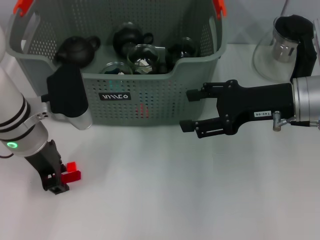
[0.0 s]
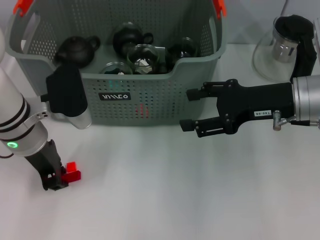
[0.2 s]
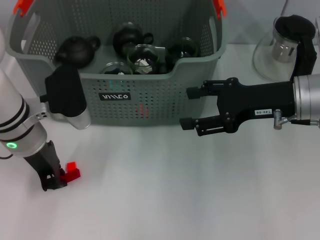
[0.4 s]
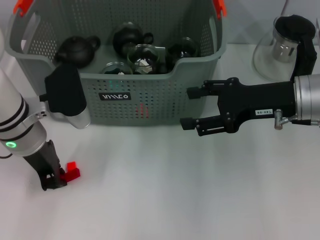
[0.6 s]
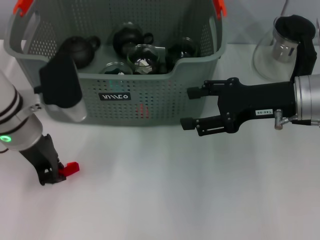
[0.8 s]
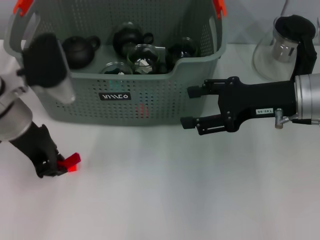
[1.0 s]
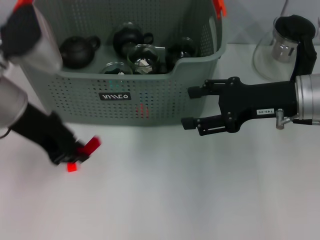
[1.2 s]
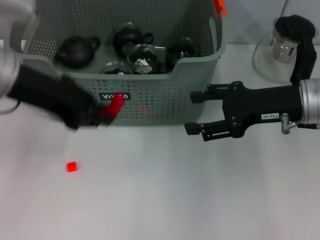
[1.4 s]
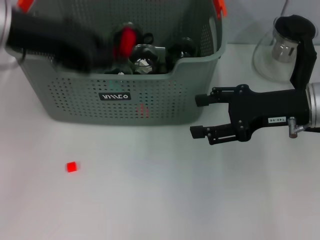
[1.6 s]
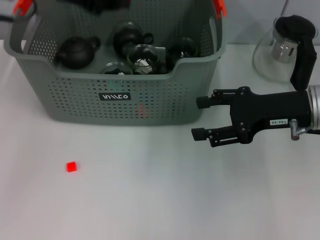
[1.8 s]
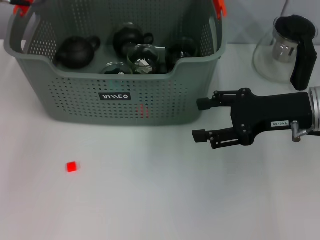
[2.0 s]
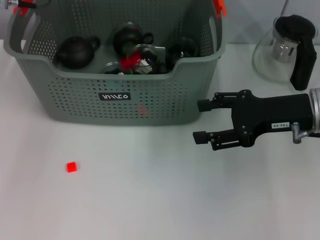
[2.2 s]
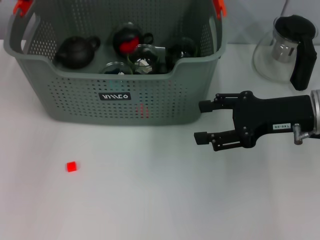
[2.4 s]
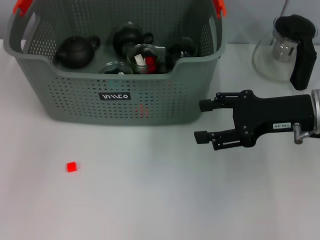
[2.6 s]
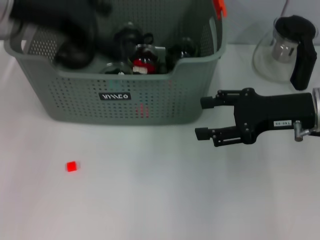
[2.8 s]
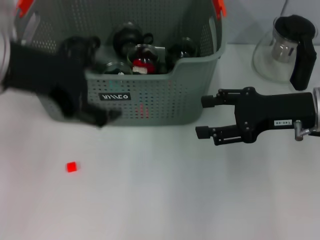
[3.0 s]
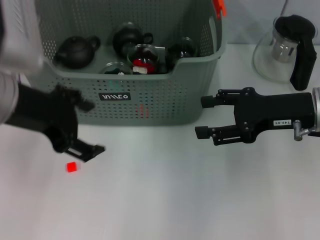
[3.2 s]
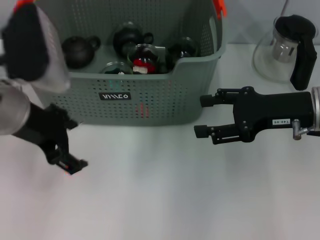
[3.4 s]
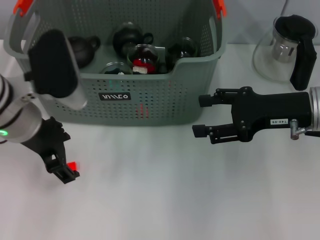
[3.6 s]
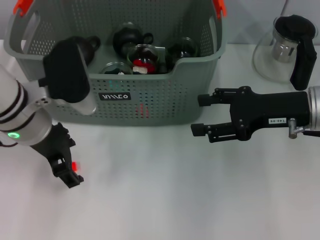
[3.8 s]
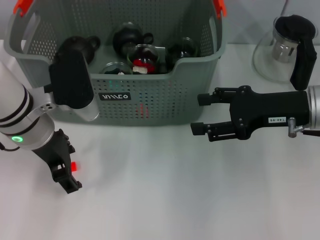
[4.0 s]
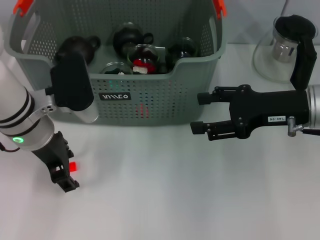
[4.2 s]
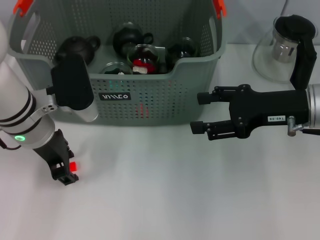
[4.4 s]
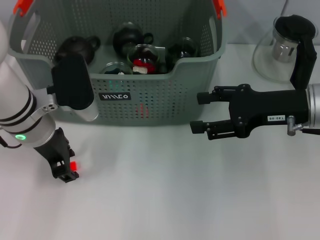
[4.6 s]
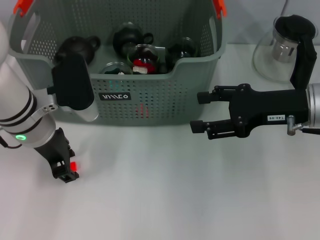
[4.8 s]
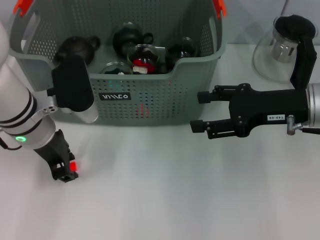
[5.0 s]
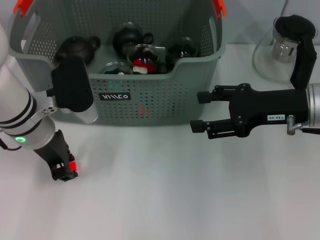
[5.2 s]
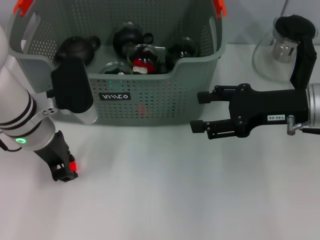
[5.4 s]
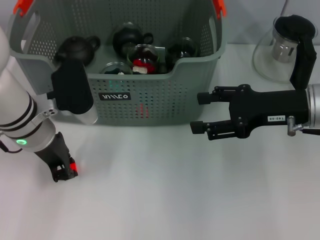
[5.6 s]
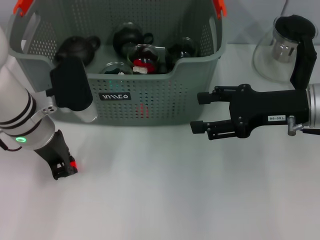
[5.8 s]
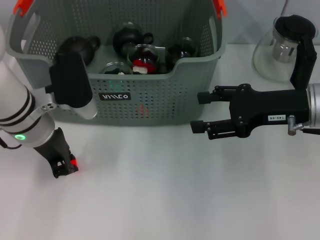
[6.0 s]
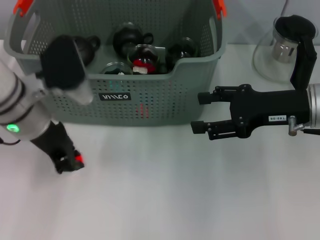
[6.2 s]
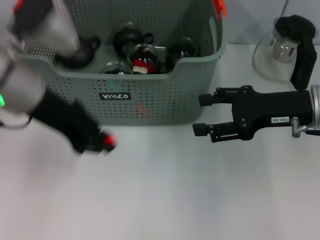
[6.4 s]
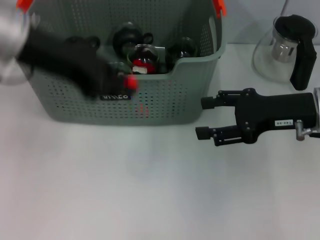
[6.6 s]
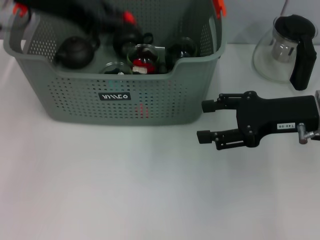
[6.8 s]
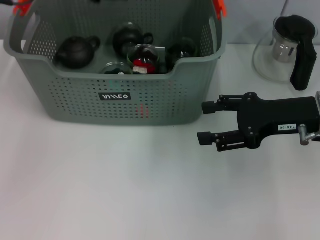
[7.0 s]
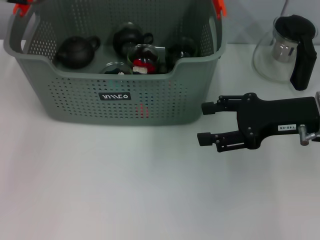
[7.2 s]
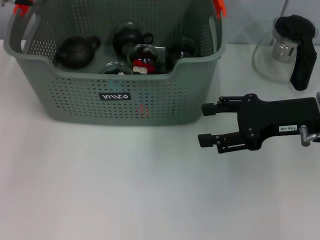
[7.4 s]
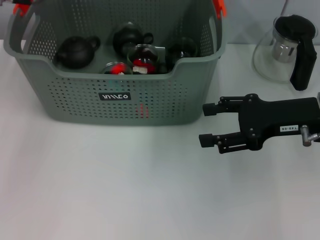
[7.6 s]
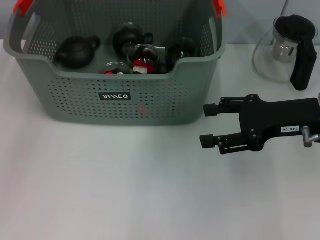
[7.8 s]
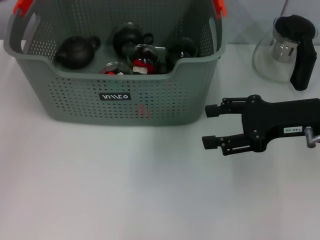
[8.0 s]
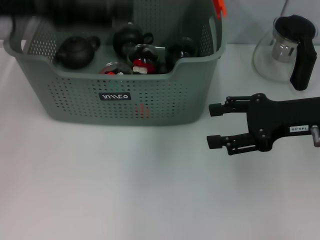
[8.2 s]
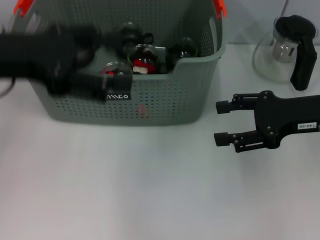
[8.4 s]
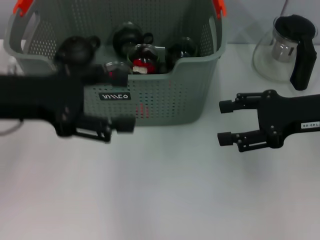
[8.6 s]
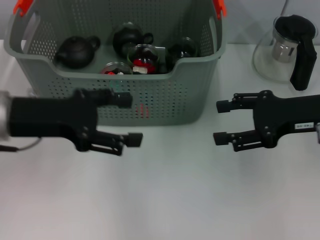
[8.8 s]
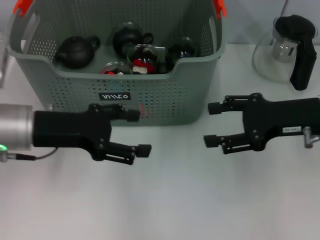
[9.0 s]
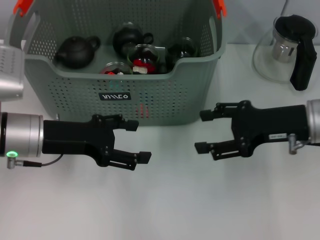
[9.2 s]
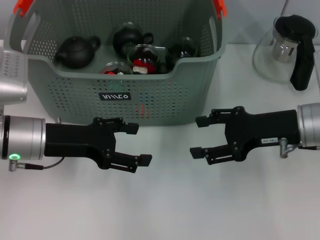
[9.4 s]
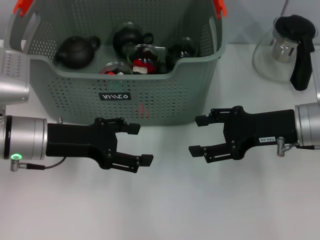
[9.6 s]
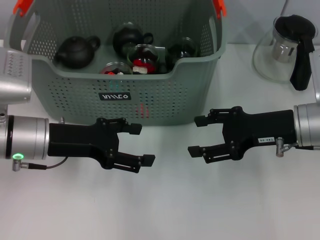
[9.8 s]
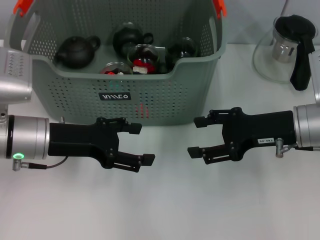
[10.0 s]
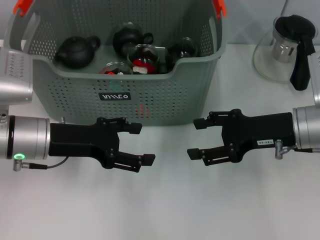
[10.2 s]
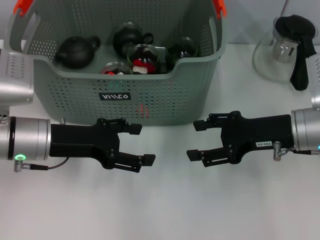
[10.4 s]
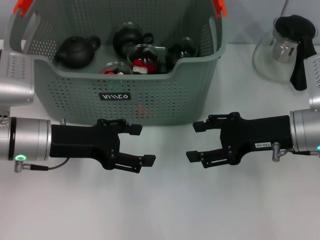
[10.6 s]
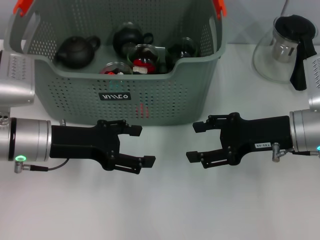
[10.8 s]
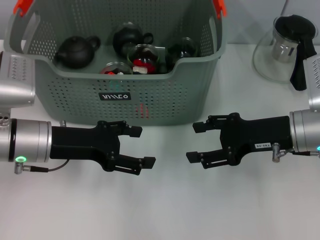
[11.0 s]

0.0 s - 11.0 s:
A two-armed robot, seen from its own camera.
Task of the whole recording: pick up the teacup on the table and place it into the storage bin, pick up the block on the table and place it into the storage bin.
Step, 0.6 s - 2.2 s: Place the red block in the storage box with left gripper.
Step, 2.4 s - 5.6 s: Grasp the orange block with left gripper.
Step, 5.8 s - 7.6 s: Place the orange block in the storage box with left gripper.
0.0 s - 1.6 s: The left gripper goes about 15 cm upward.
1.6 s - 3.2 s: The left gripper travels forward and back again, roughly 10 cm each way, and opens up.
3.2 s - 4.8 s: The left gripper goes some 10 cm downward and forward, and closes up.
4.8 s - 6.2 s: The left gripper closes its fingers.
6.2 s - 7.8 s: The left gripper shifts about 15 cm upward and forward, and opens up.
7.8 s - 9.4 s: The left gripper moves downward and backward, approximately 20 cm, and opens up.
9.4 s - 11.0 s: The two grippers keep their place.
